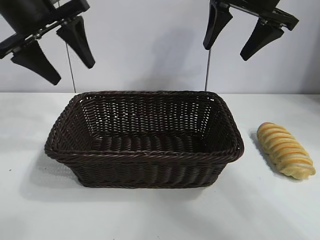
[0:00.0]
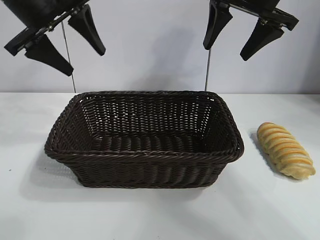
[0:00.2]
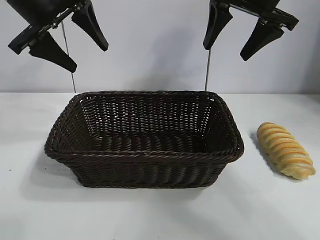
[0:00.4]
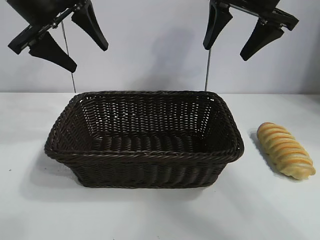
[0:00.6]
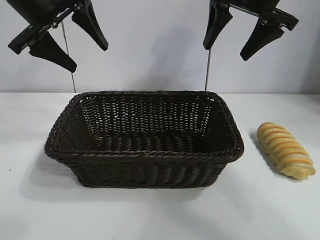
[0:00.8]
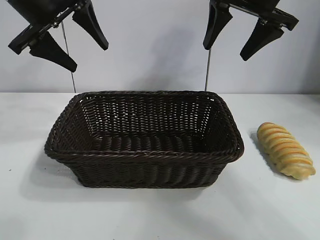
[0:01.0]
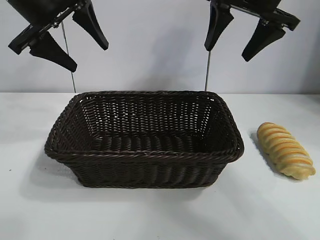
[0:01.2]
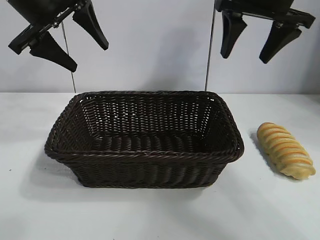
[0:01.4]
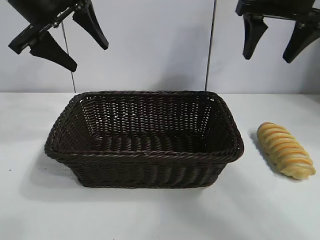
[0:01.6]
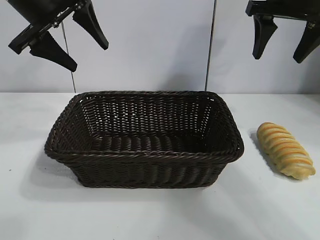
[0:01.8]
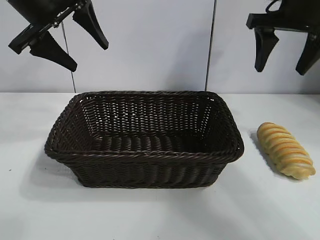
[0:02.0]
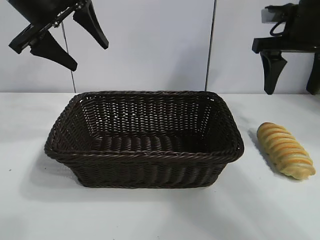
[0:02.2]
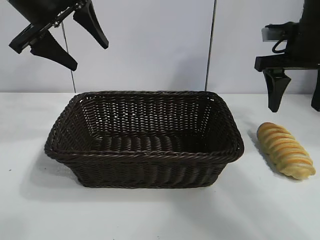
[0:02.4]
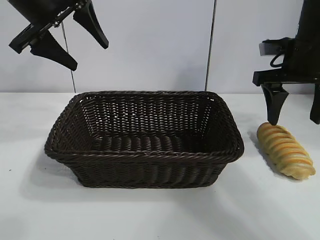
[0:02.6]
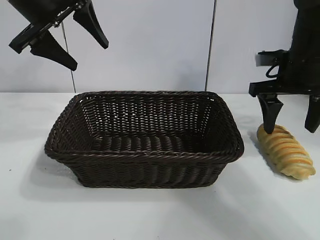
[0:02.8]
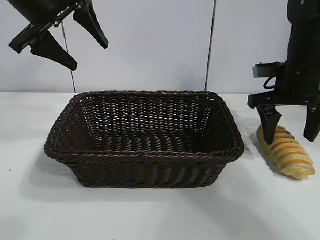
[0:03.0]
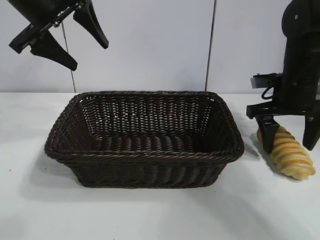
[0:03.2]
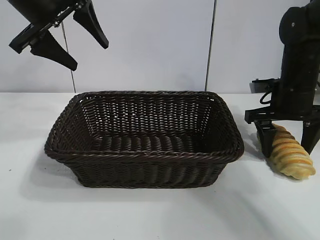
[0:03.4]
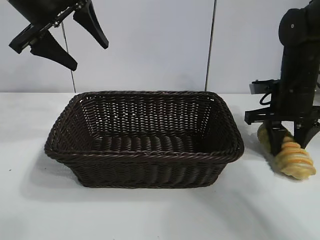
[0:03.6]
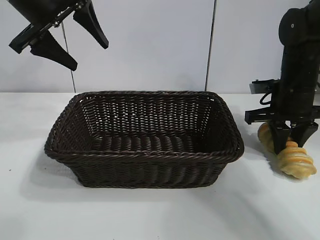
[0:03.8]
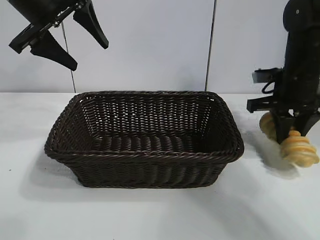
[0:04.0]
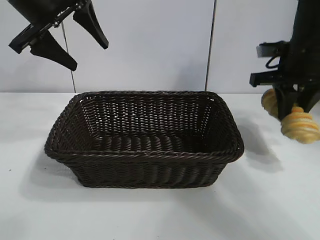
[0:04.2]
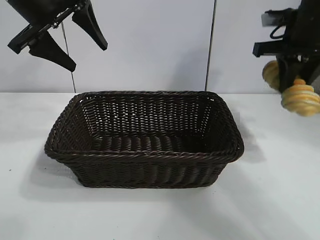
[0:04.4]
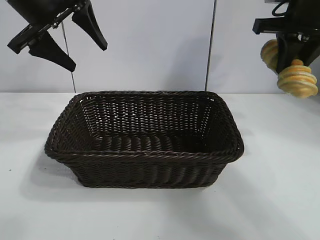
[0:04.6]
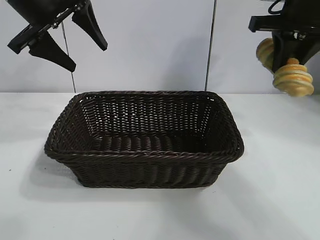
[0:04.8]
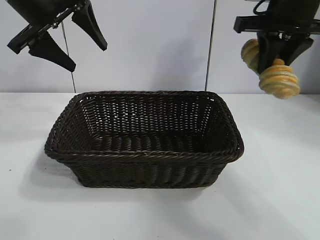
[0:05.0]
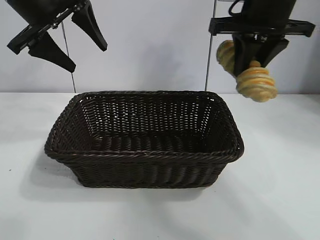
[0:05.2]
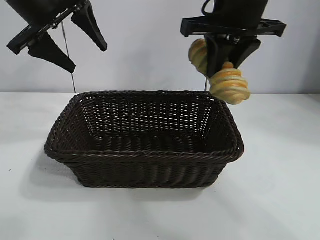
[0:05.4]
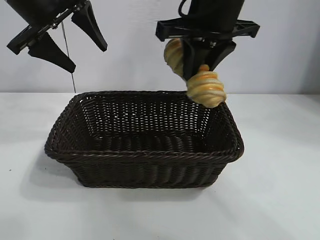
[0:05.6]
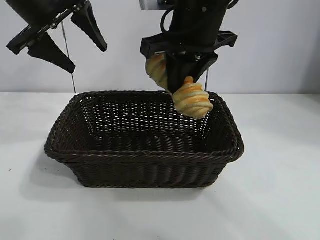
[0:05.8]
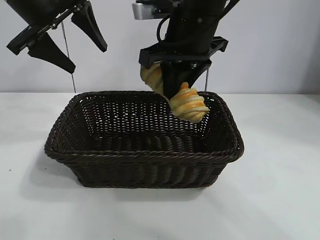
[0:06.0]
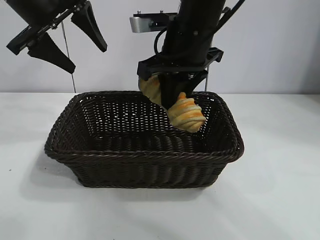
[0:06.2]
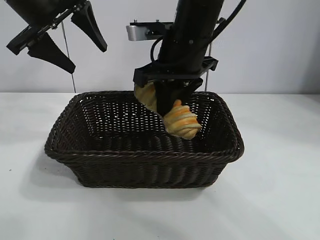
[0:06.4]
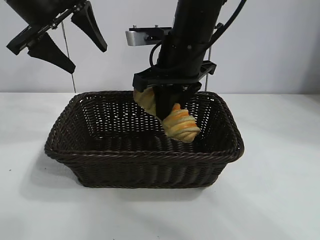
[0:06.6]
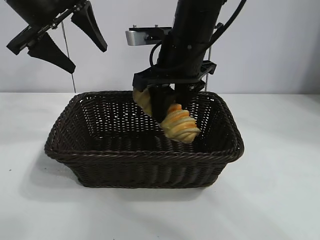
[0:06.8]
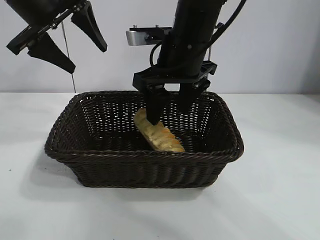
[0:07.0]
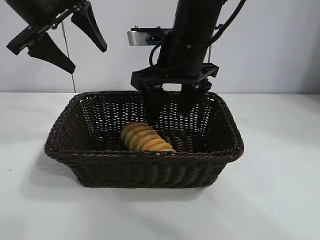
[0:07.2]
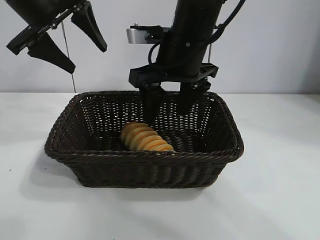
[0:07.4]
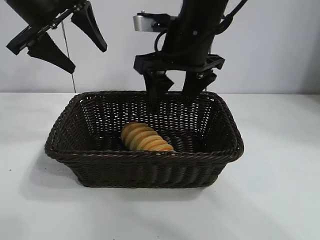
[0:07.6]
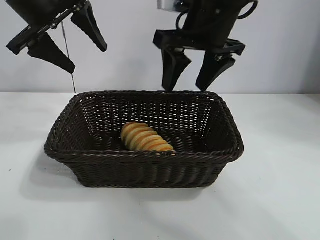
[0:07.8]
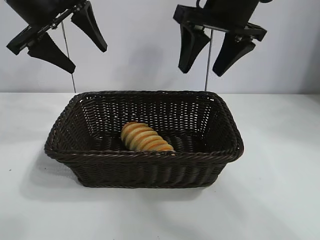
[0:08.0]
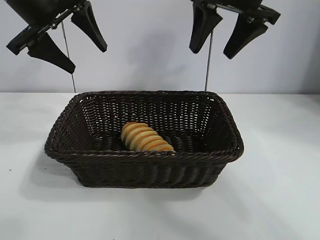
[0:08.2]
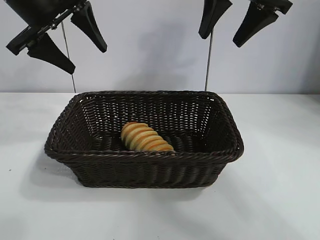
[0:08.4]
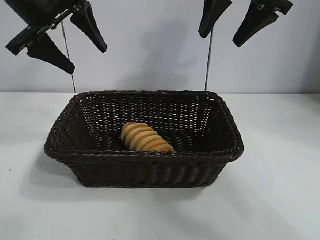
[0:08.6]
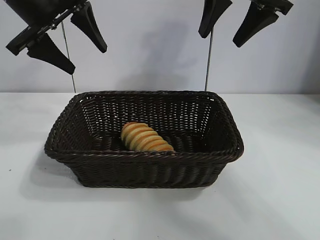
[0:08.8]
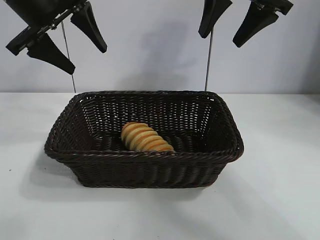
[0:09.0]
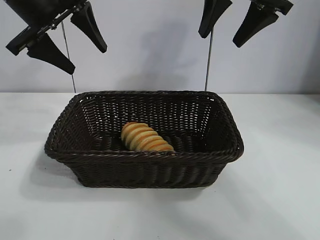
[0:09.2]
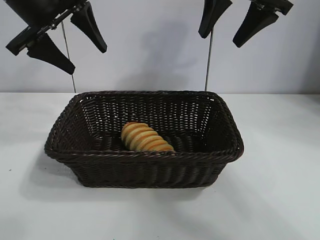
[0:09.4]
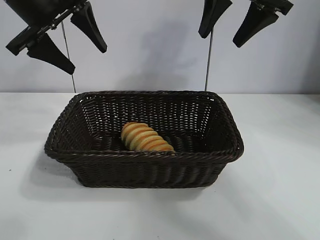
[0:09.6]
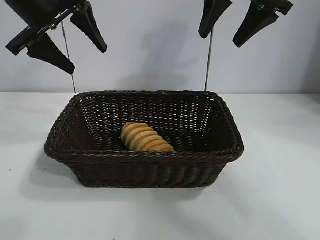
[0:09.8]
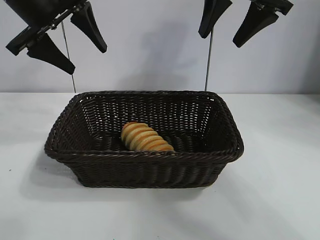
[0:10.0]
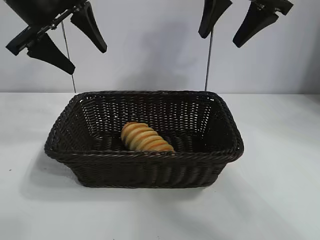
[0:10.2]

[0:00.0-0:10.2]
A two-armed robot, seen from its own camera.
Task of the whole recording: pick up the long bread and put it into the basket.
Step, 0:00.0 to 0:03.6: Grasp the long bread with right gripper.
Step, 0:04.0 to 0:07.0: Place the long bread in the basket with right gripper.
